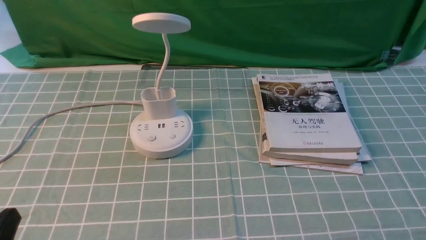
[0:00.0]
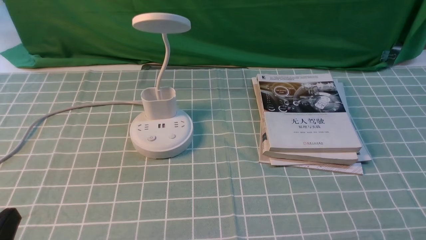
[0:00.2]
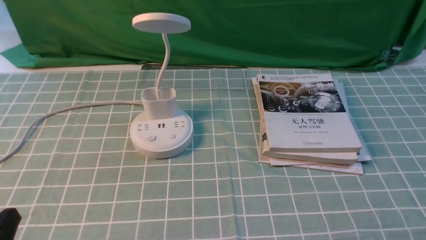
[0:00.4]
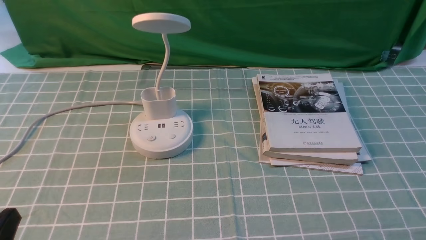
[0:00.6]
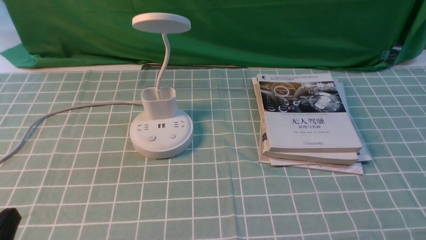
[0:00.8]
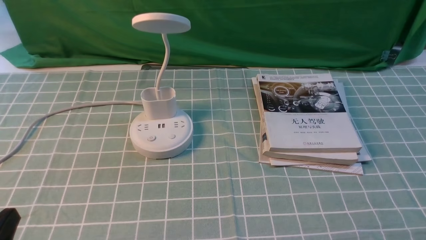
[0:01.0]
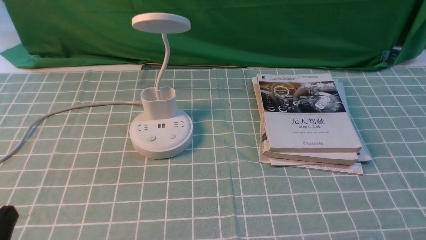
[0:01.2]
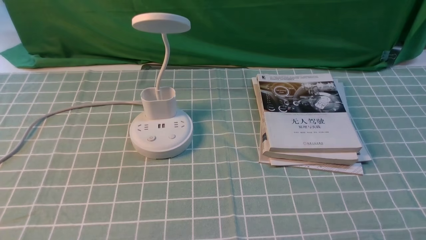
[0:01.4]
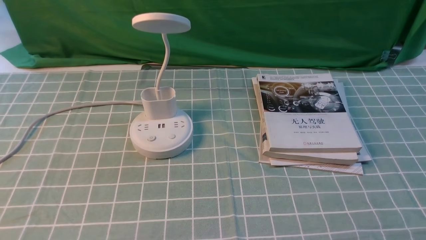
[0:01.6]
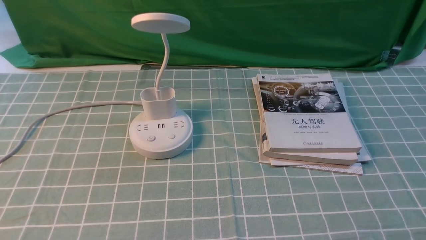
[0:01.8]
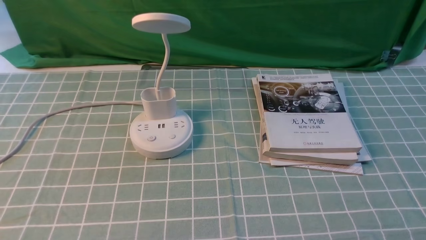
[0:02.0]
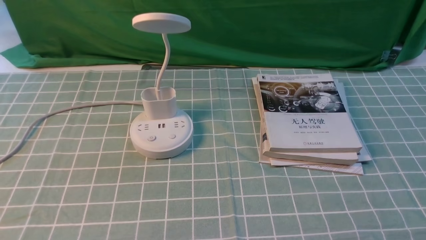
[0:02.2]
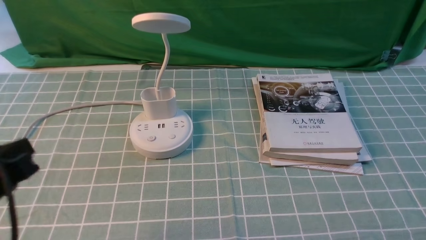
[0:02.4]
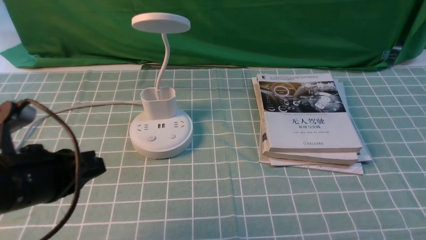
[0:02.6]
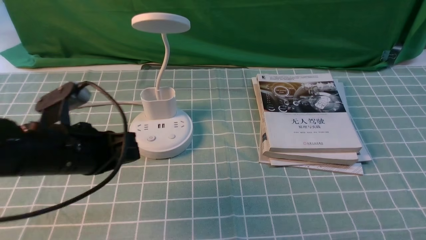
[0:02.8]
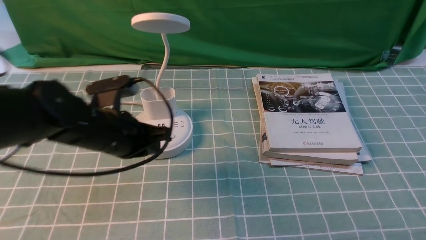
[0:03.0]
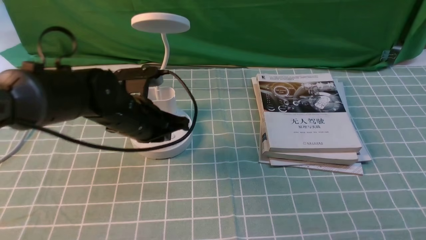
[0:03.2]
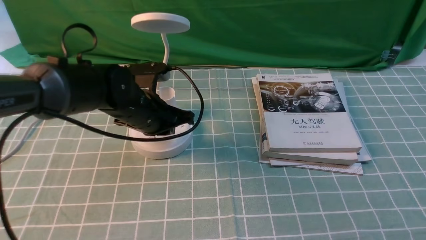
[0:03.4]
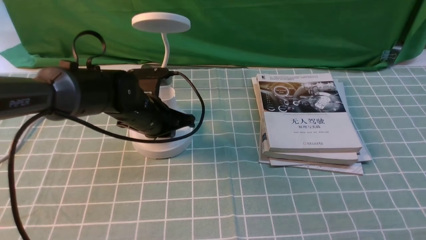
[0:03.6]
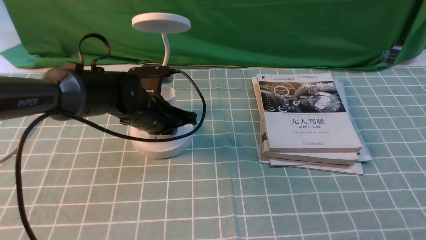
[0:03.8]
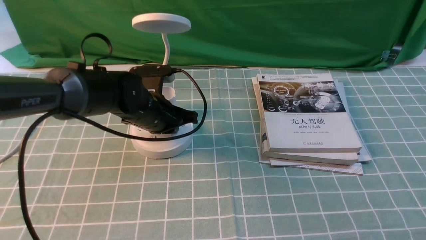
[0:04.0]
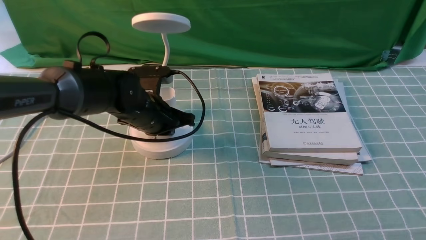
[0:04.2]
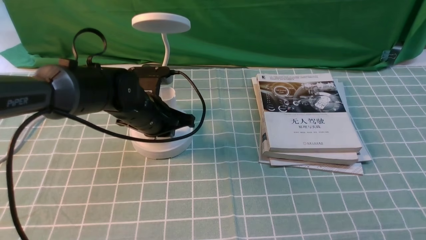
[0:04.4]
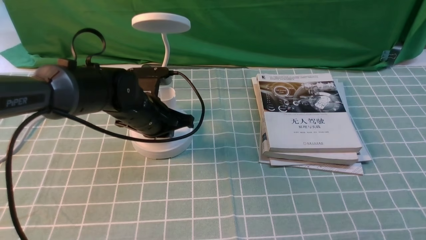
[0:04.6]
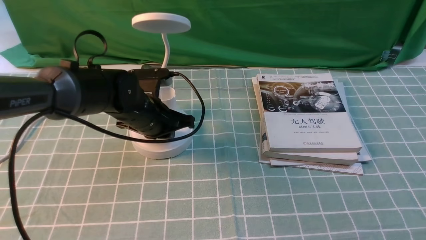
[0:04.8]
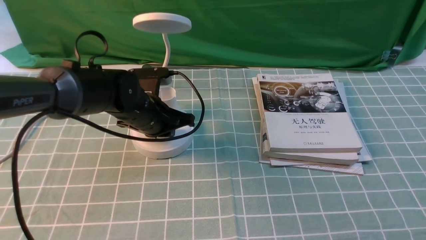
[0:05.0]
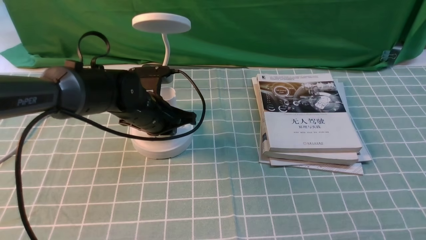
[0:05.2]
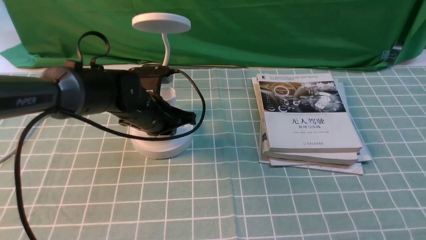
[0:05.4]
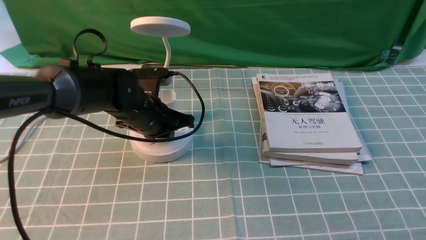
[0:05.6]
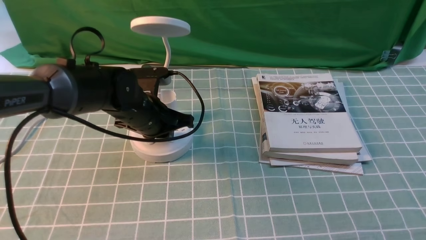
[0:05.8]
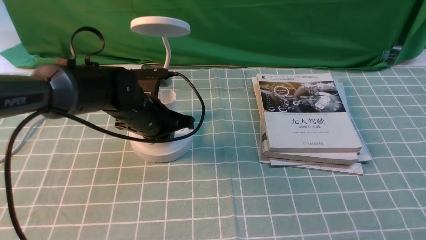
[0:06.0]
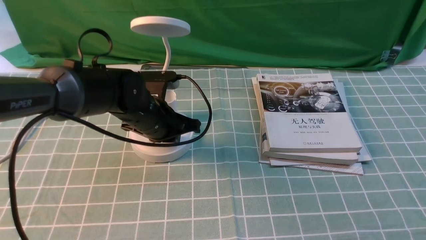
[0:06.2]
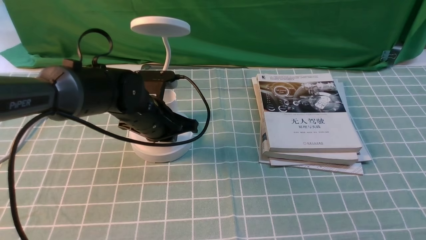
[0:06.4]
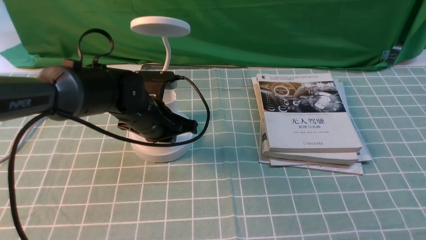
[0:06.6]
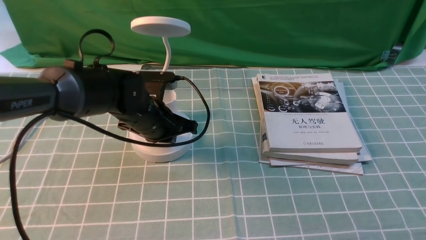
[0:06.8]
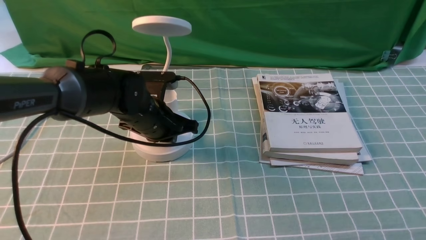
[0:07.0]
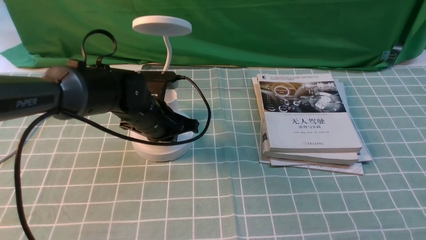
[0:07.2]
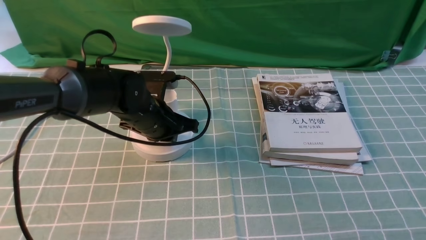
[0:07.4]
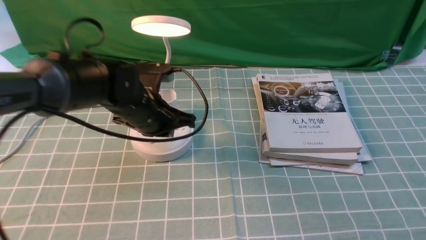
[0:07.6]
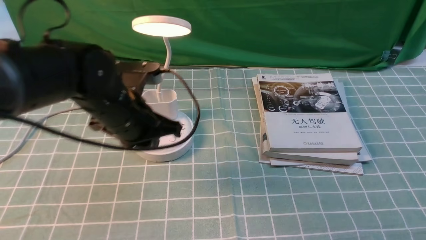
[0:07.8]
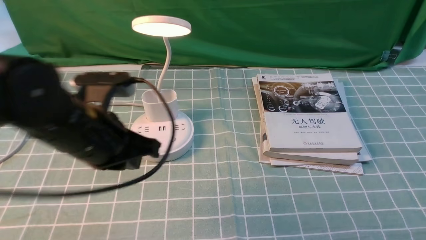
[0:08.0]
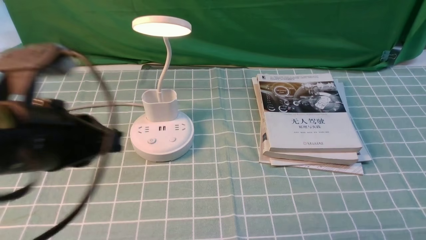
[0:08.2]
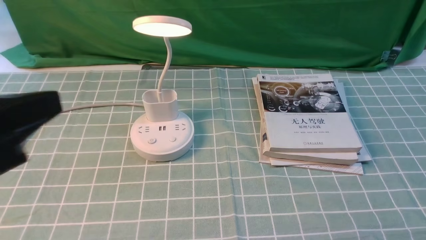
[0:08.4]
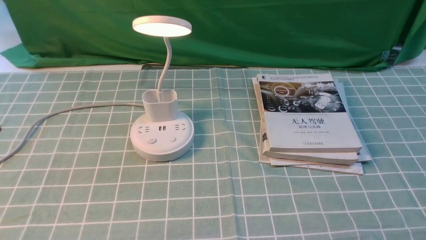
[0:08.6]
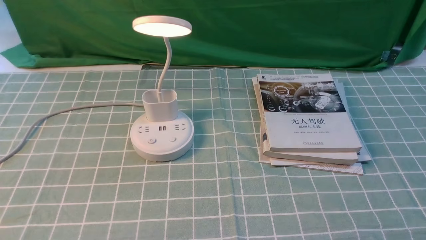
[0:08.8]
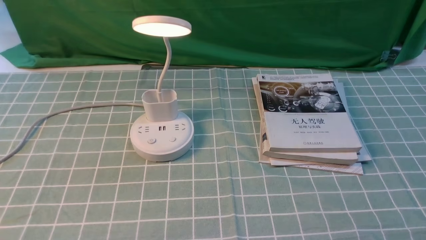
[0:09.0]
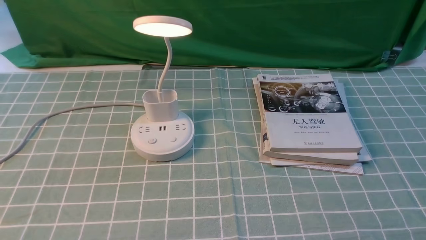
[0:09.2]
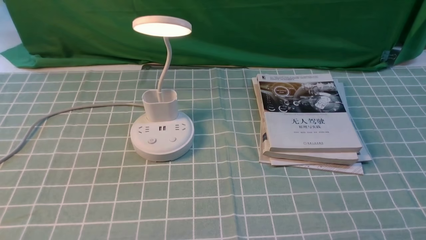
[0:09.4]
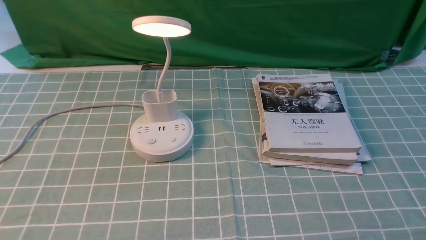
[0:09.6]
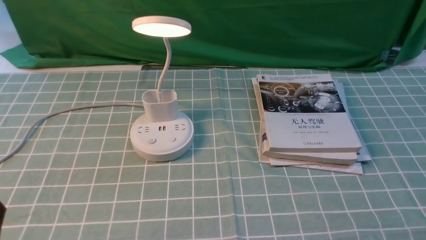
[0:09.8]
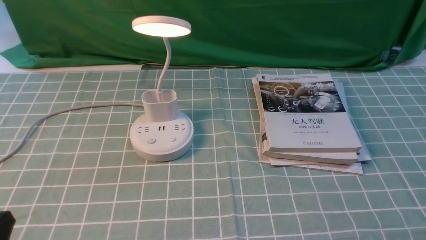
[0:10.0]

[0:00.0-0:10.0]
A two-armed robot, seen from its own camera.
Step, 0:00.0 to 0:07.6: use the left arm to press the button switch on the lamp holder.
0:01.4 to 0:02.8: The left gripper is displaced forward by about 15 cm.
0:02.8 to 0:04.2: The left gripper shifts some 20 cm forward, to the right and downward.
0:04.2 to 0:05.8: Both grippers stay put.
0:05.8 to 0:07.2: Both grippers stay put.
0:07.2 to 0:08.6: The left gripper goes roughly 40 cm backward, upward and to the left.
0:08.6 to 0:10.0: The left gripper goes roughly 20 cm downward.

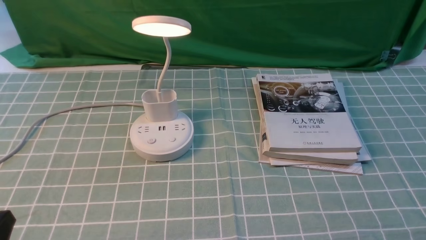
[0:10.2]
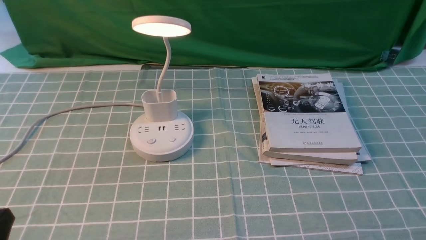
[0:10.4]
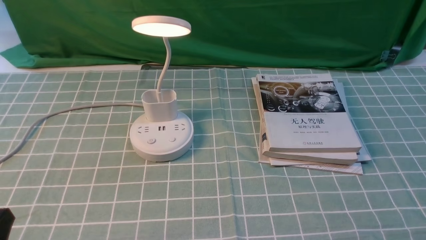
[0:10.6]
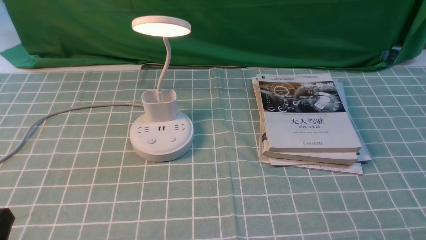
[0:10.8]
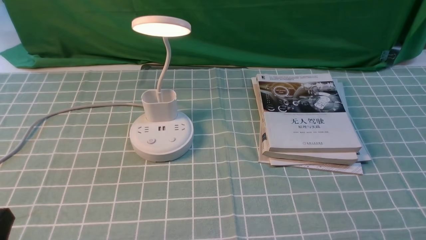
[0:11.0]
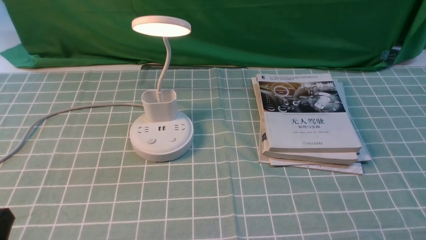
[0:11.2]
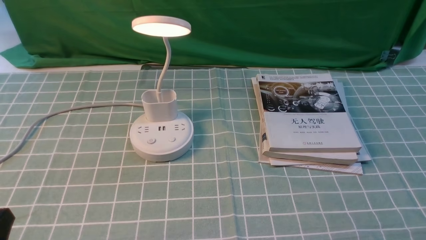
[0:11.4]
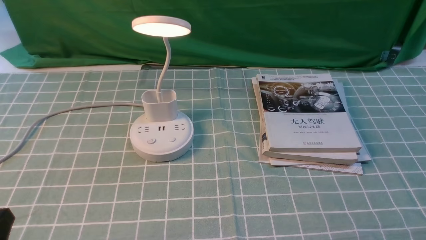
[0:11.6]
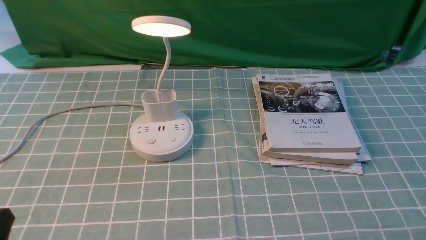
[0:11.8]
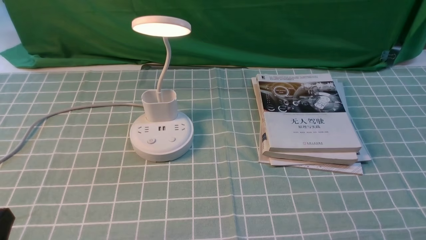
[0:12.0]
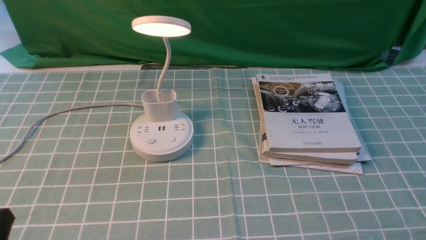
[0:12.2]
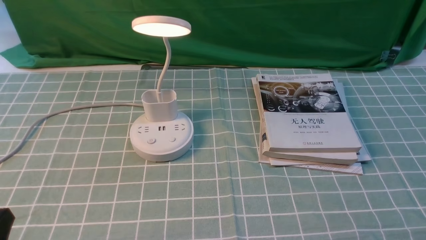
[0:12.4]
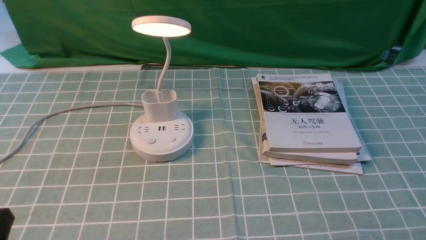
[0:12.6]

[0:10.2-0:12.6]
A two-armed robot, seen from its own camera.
0:11.4 to 0:12.6: The two grippers keep their place.
